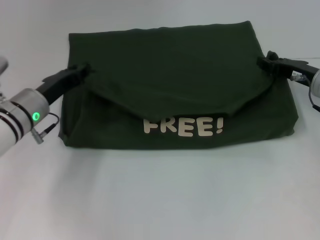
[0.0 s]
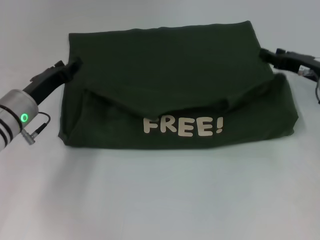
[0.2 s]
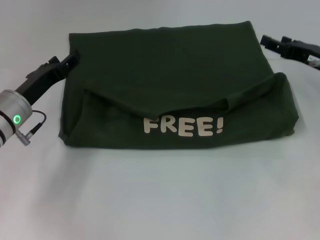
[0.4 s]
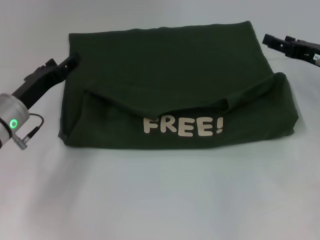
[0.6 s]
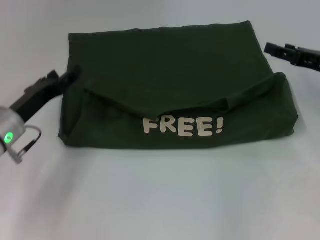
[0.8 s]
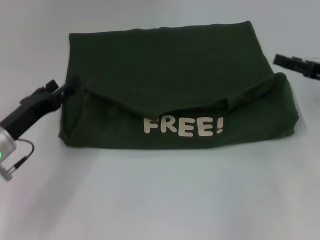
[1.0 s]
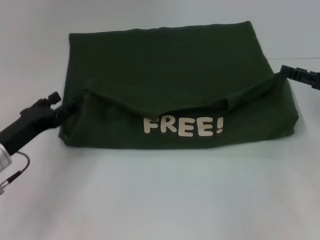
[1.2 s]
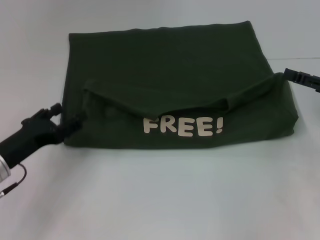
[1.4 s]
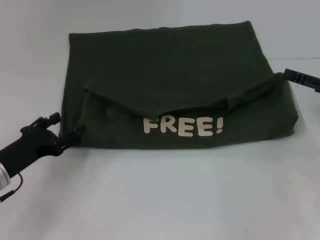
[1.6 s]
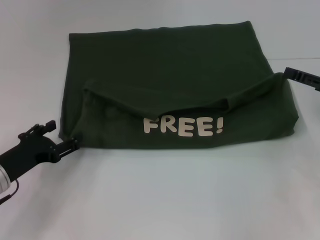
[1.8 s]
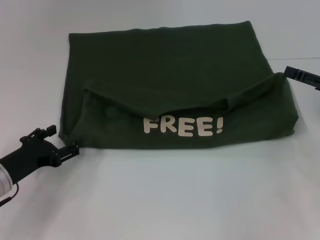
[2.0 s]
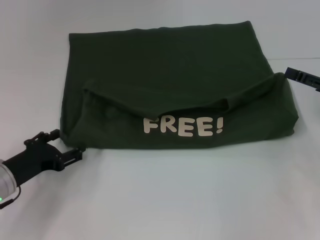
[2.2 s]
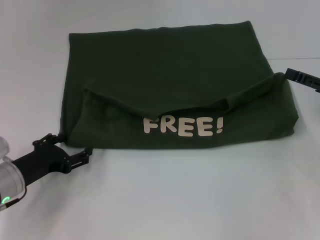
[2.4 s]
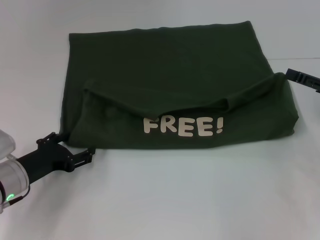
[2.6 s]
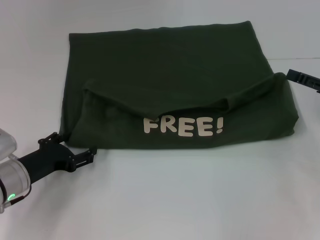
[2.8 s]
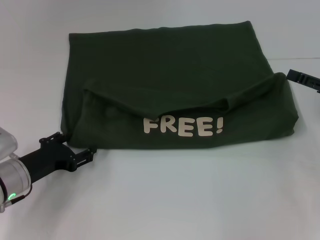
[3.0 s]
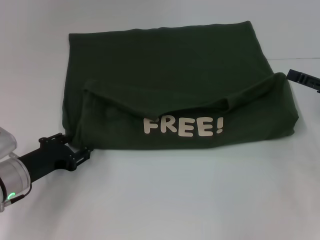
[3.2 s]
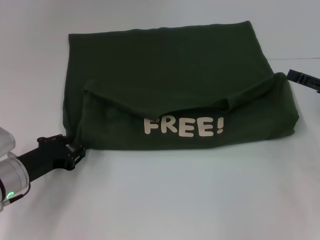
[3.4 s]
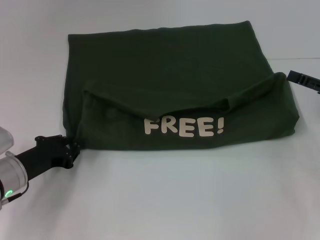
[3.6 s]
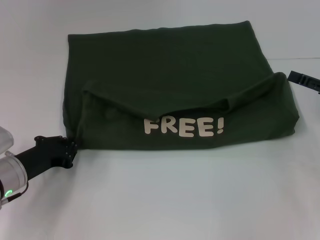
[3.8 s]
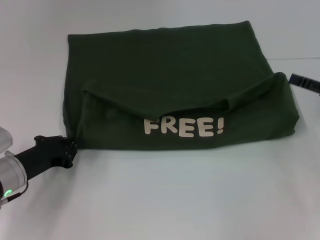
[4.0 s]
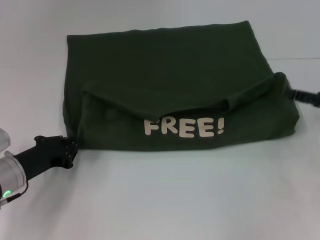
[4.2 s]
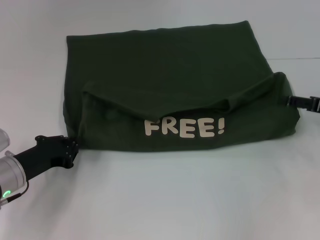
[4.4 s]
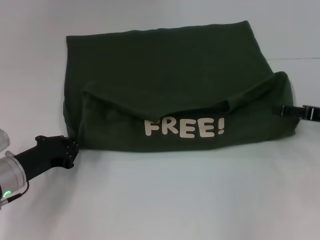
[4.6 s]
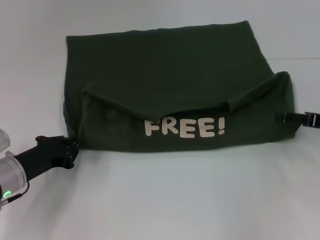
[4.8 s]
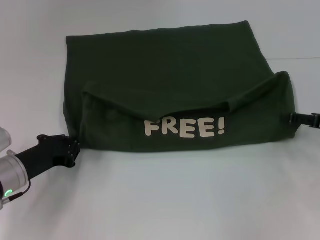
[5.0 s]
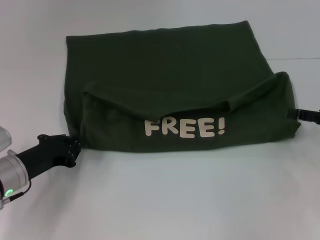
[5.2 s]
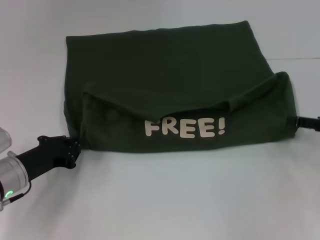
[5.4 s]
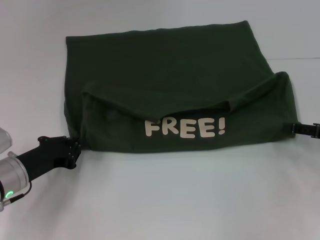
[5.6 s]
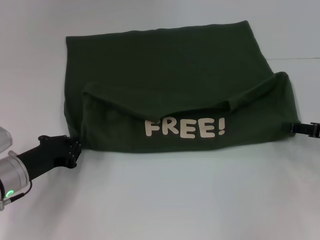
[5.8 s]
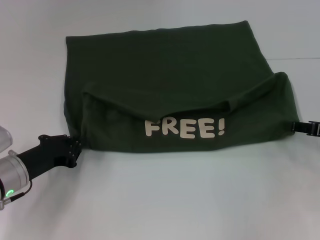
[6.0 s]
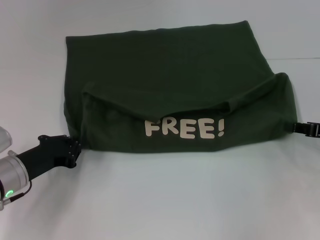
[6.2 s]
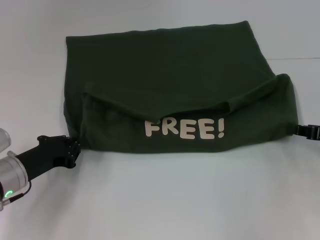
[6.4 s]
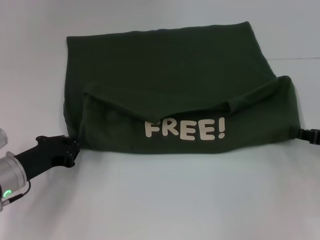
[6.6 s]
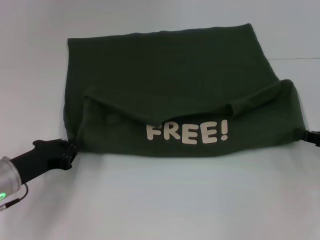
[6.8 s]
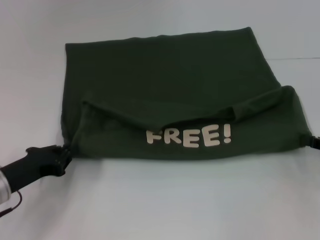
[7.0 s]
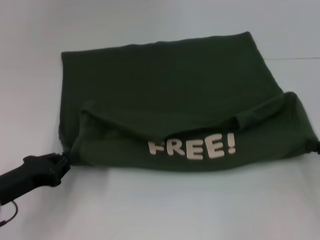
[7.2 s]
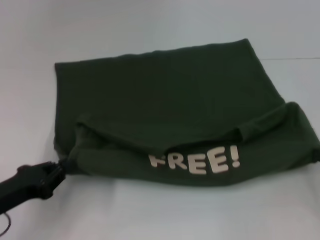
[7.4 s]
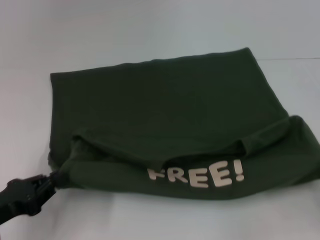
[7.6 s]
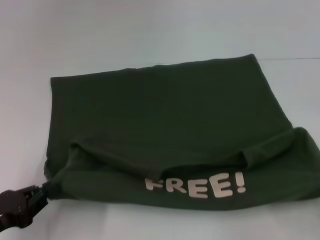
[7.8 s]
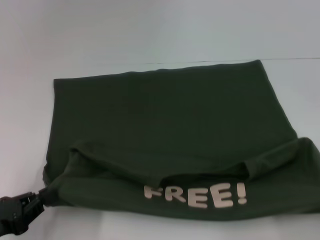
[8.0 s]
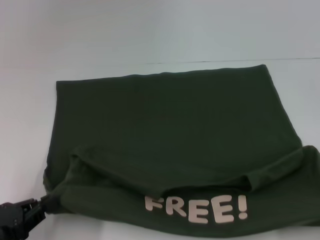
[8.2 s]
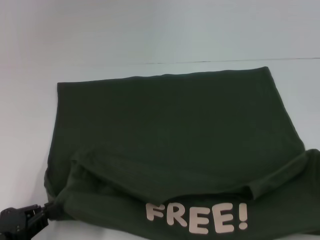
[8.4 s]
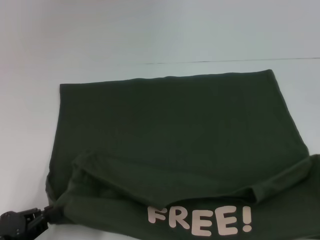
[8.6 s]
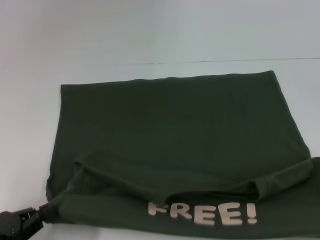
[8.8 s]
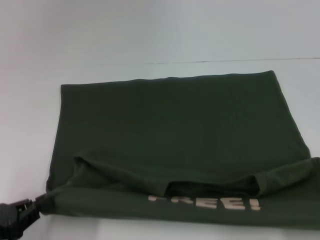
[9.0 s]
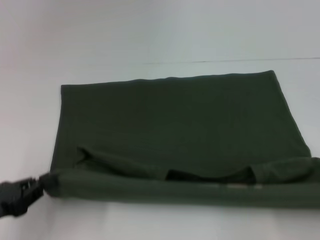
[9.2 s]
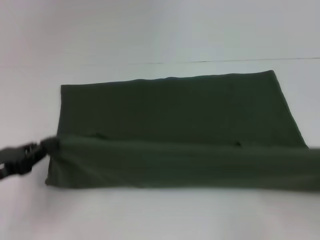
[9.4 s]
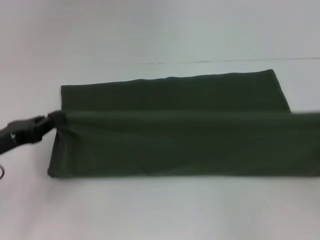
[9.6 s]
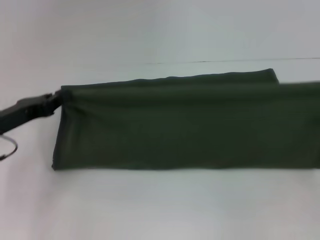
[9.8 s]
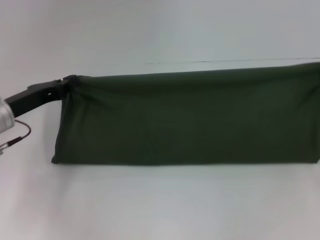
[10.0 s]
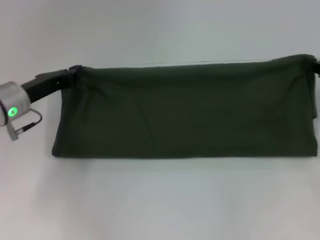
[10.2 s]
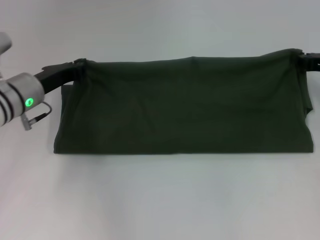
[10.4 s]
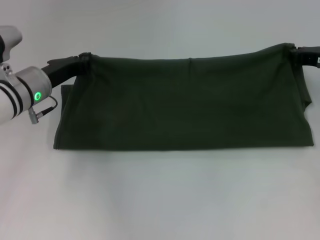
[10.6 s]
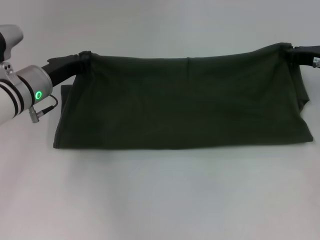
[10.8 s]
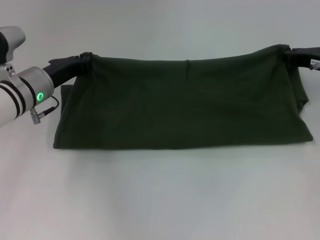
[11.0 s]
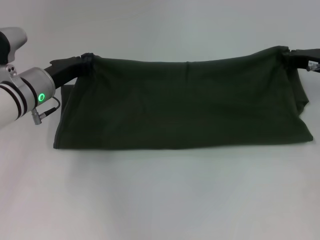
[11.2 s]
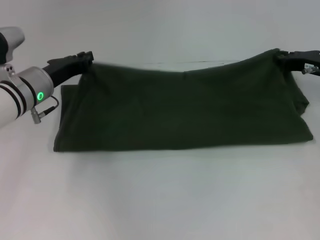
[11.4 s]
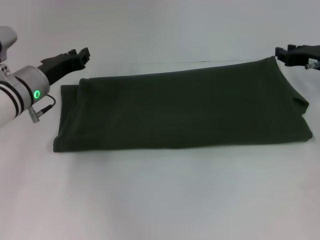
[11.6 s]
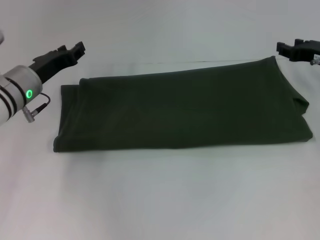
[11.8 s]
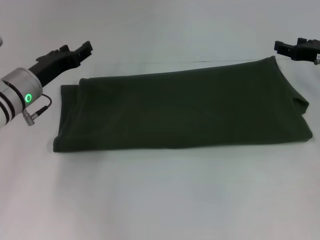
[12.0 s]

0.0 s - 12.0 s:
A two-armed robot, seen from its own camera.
Step, 0.4 s - 8.4 s: Pull the clothes with your left hand.
Step, 0.4 s - 8.4 s: Pull the clothes with your right hand.
Step, 8.6 s - 11.4 s: Fold the clothes with your right hand.
0.0 s - 1.6 s: The left gripper travels backward and to the left by about 10 cm, and opens, while the right gripper travels backward and to the right by some 10 cm, and opens its fingers.
1.6 s - 3.0 s: The grippers stay close to where they were, moving slightly.
3.0 s - 4.4 s: The left gripper closes its fingers.
4.4 s - 6.0 s: The grippers move only a little.
6.0 s - 7.6 s: Both grippers travel together backward, about 10 cm. The right gripper closes.
7.6 s - 9.0 s: The right gripper heads backward, covering roughly 10 cm.
9.0 s - 10.4 s: The left gripper goes roughly 25 cm forward and to the right, while the right gripper is displaced forward by roughly 25 cm.
10.4 s - 12.0 s: The left gripper opens; the right gripper opens.

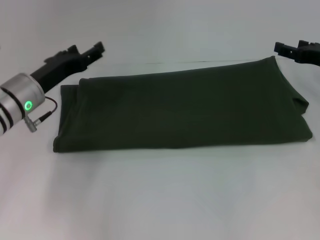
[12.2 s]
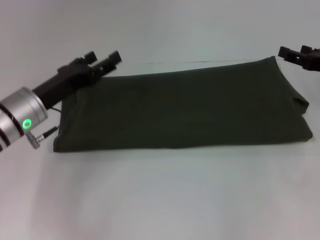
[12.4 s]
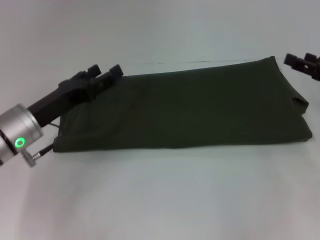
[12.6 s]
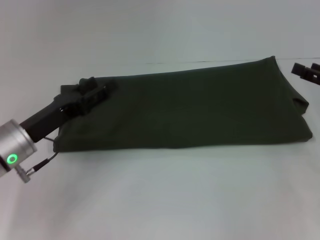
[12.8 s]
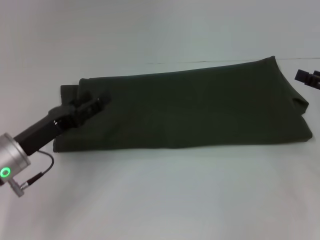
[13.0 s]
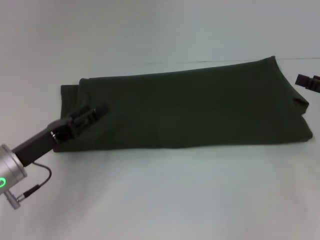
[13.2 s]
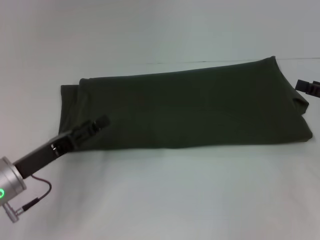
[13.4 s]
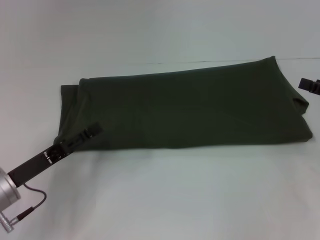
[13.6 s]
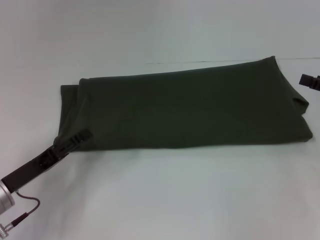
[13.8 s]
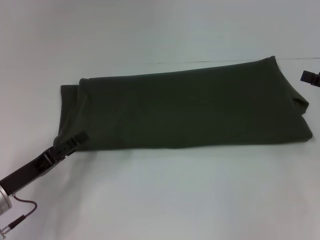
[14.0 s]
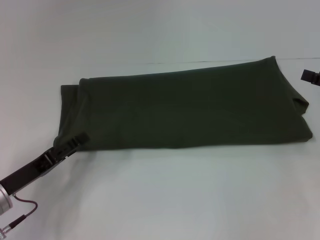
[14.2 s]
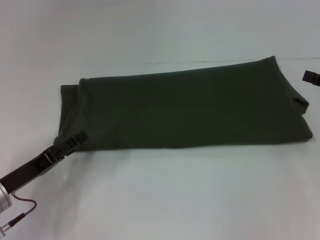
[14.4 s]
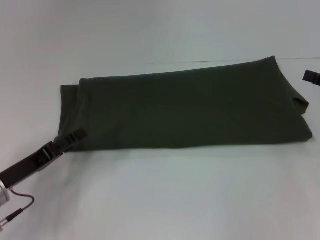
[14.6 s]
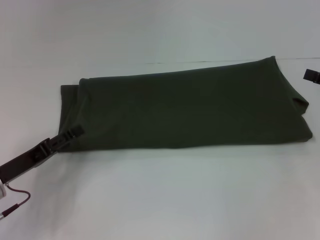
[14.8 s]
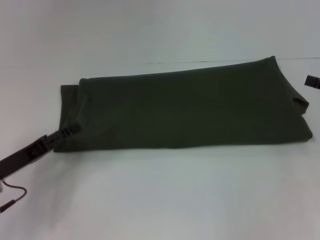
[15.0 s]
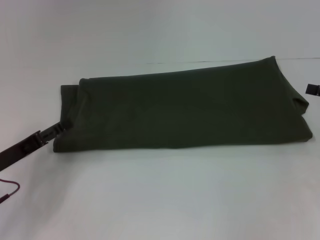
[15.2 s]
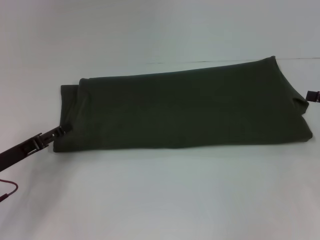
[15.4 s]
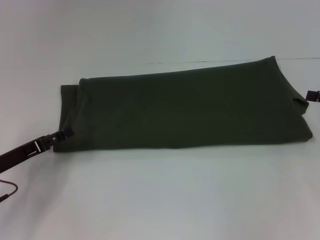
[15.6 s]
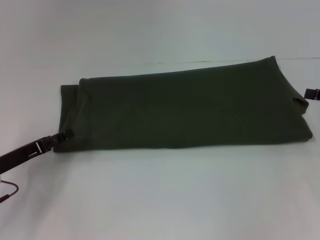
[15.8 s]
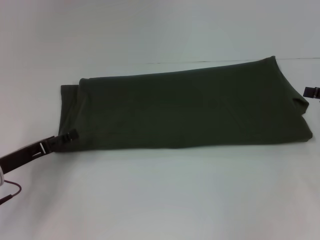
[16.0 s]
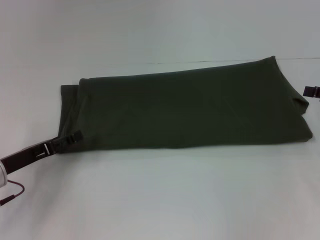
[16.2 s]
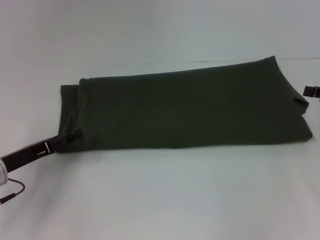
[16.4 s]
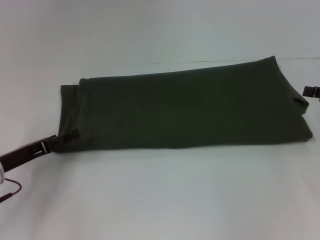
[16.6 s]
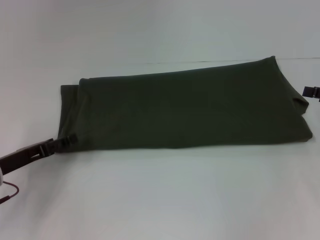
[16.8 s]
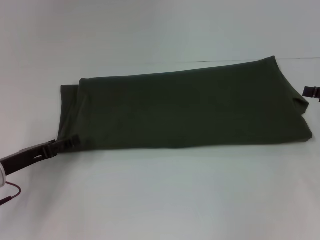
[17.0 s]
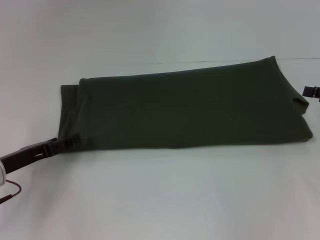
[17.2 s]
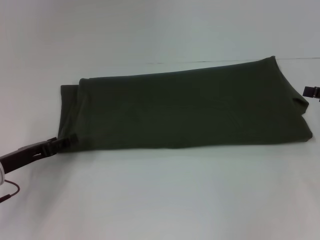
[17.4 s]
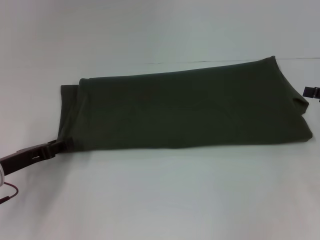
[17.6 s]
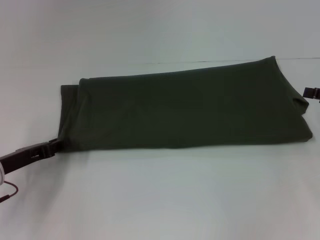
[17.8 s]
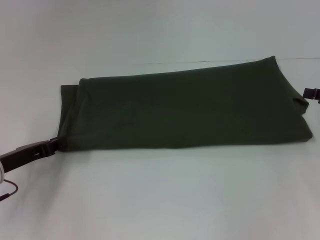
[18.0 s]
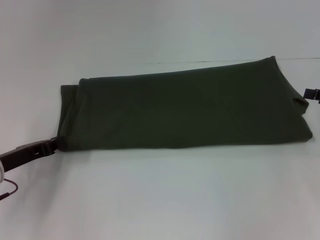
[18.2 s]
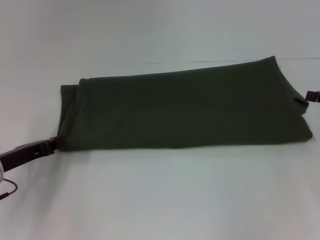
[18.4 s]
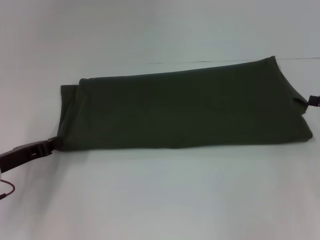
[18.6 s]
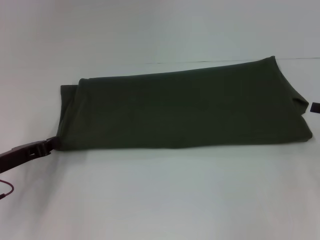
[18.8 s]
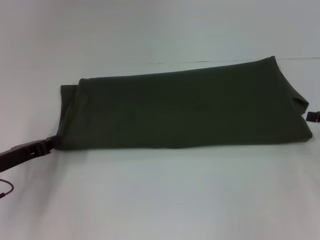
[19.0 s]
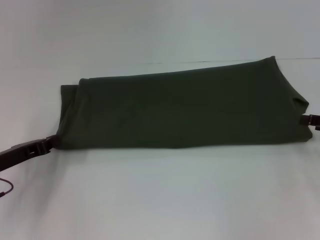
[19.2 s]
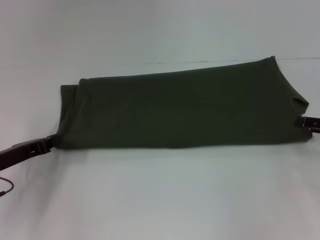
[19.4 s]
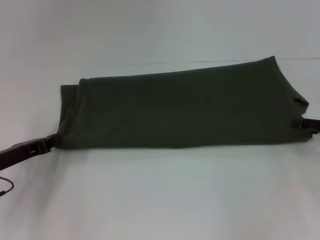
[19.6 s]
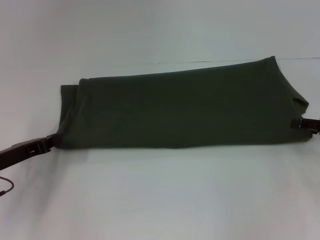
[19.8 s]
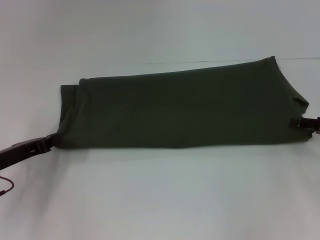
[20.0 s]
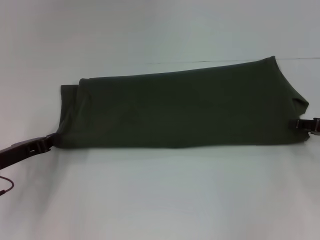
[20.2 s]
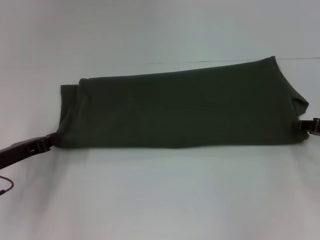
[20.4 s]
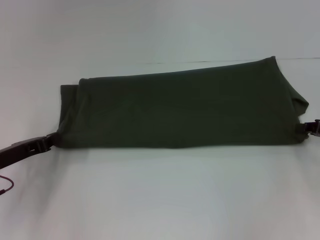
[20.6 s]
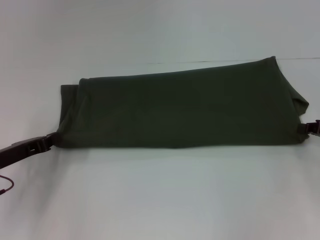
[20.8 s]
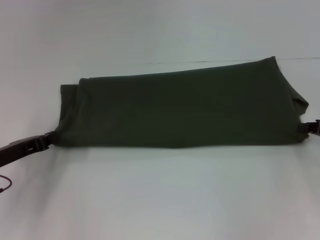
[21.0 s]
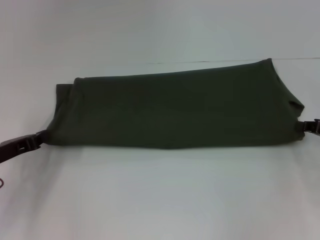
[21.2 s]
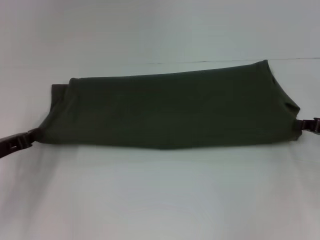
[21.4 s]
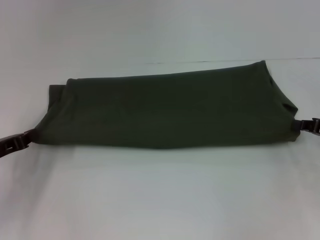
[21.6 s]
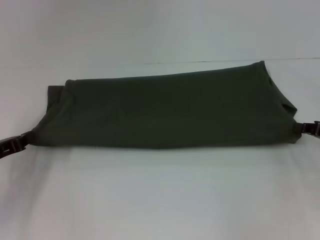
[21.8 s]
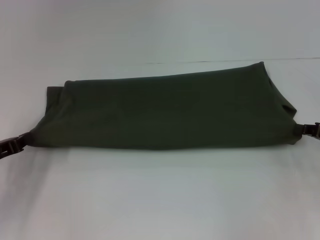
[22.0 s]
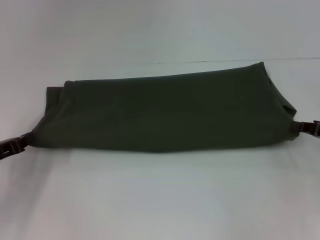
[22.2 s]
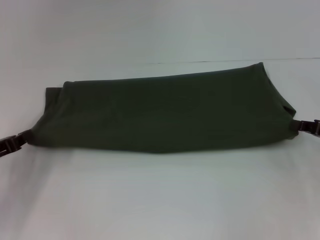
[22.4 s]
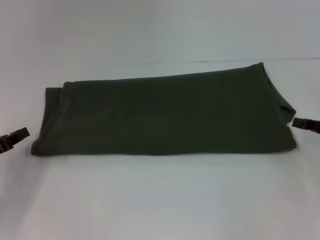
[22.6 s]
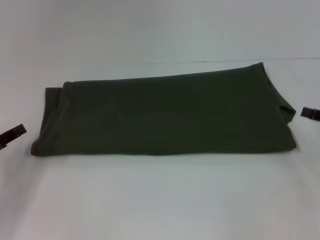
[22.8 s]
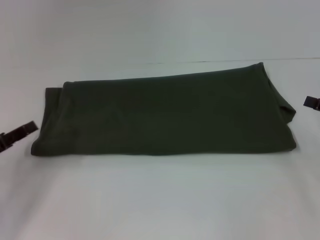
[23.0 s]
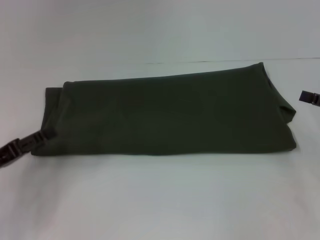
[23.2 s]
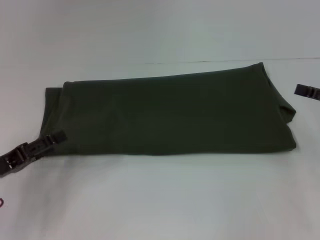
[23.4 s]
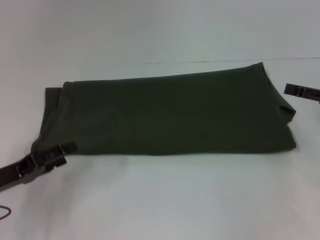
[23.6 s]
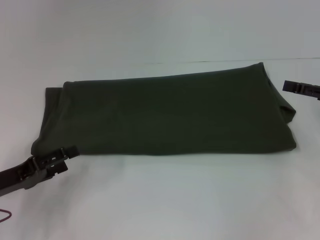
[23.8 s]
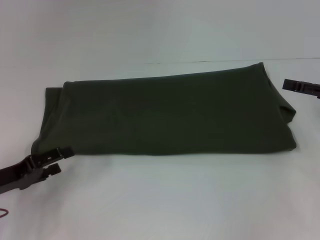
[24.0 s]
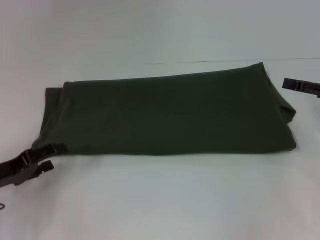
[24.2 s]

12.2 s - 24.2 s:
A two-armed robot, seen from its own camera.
12.2 s - 13.8 s: The right gripper shifts approximately 10 cm backward and to the right; the left gripper shifts approximately 15 cm backward and downward.
13.8 s - 15.2 s: The grippers stay close to where they were, moving slightly.
15.2 s - 16.6 s: The grippers stay close to where they were, moving slightly.
16.6 s - 18.2 s: The left gripper closes.
18.2 s - 19.8 s: The grippers make only small movements.
19.8 s - 21.2 s: The right gripper closes up.
21.2 s - 22.6 s: The grippers stay close to where they were, moving slightly.
22.6 s - 24.2 s: The right gripper goes approximately 5 cm upward, and opens its fingers. Meanwhile the left gripper opens its fingers.
